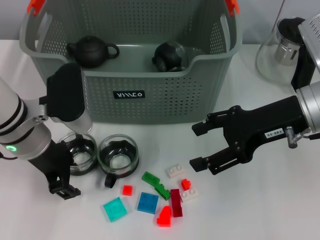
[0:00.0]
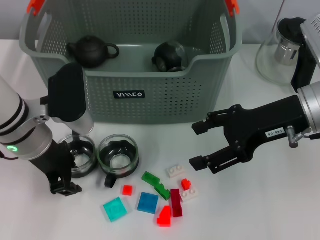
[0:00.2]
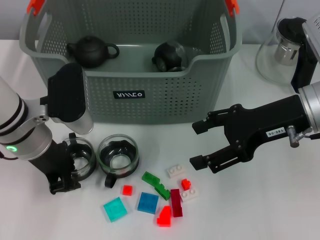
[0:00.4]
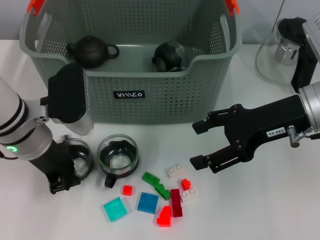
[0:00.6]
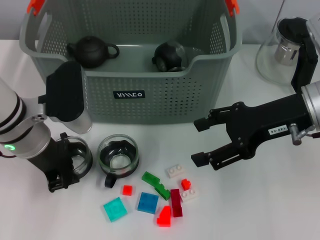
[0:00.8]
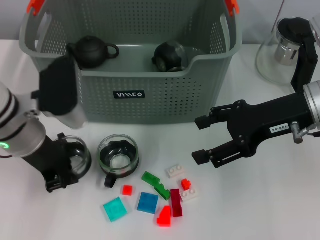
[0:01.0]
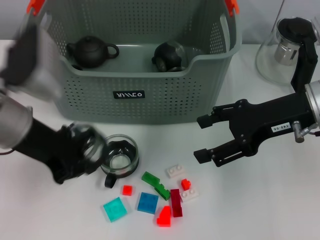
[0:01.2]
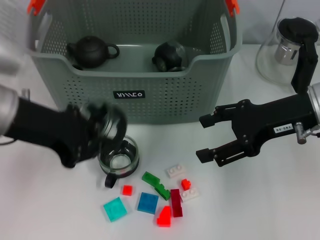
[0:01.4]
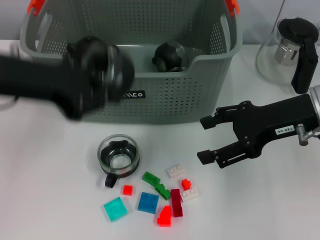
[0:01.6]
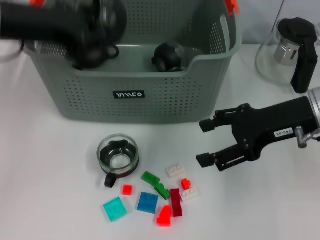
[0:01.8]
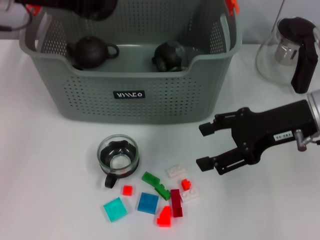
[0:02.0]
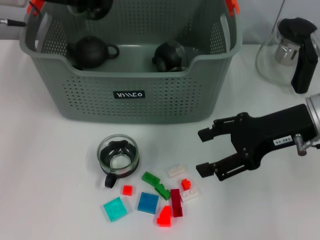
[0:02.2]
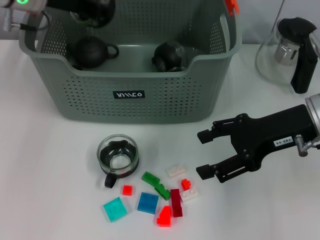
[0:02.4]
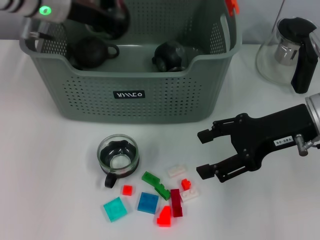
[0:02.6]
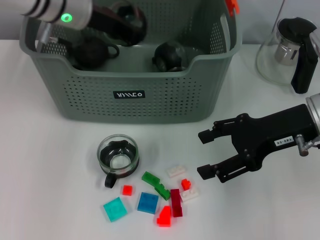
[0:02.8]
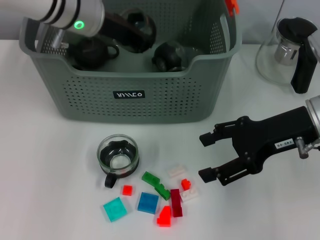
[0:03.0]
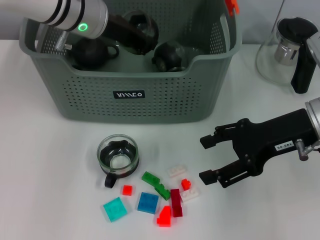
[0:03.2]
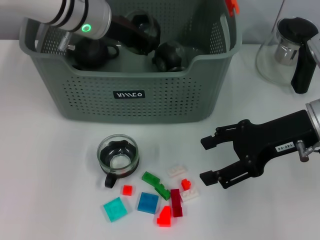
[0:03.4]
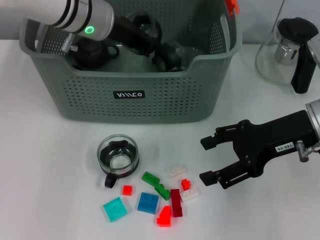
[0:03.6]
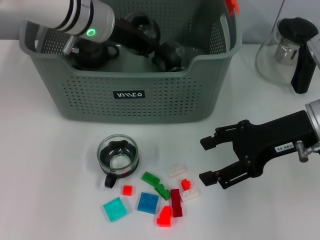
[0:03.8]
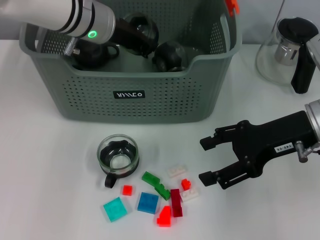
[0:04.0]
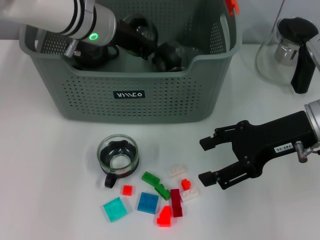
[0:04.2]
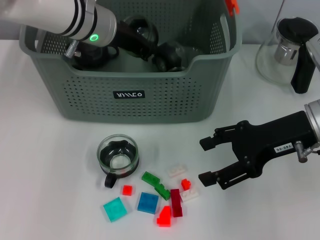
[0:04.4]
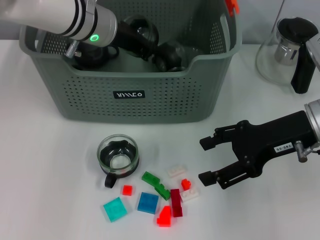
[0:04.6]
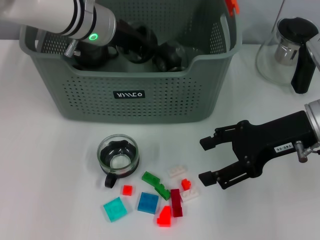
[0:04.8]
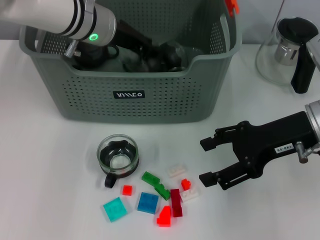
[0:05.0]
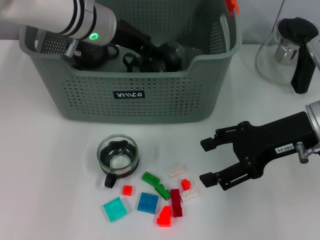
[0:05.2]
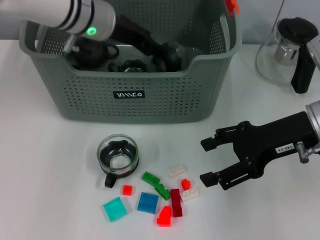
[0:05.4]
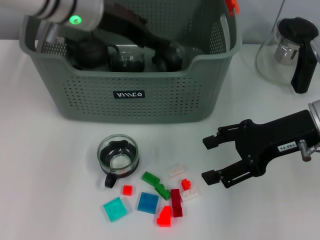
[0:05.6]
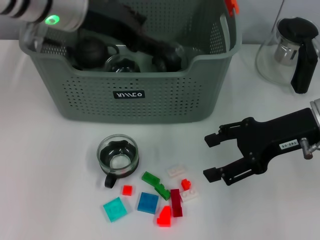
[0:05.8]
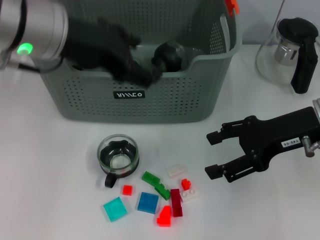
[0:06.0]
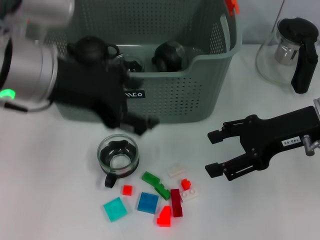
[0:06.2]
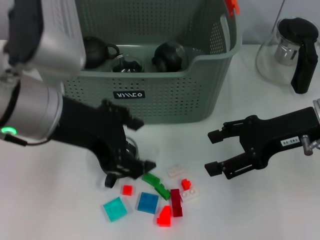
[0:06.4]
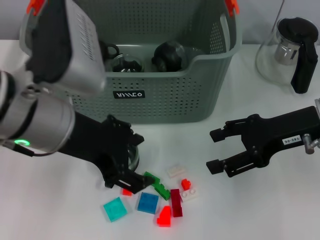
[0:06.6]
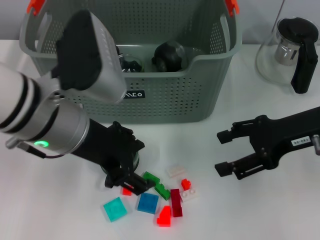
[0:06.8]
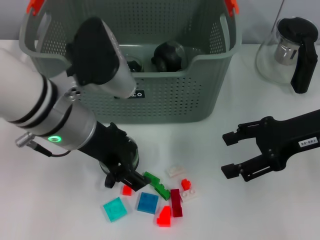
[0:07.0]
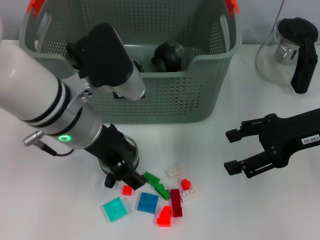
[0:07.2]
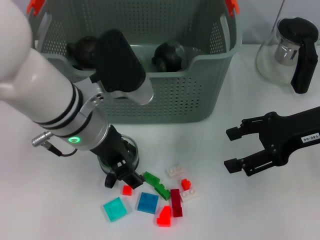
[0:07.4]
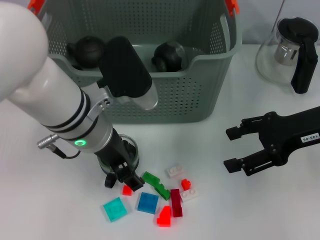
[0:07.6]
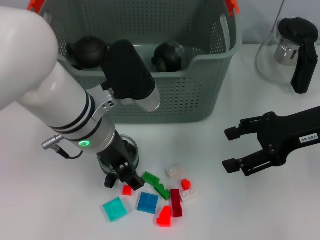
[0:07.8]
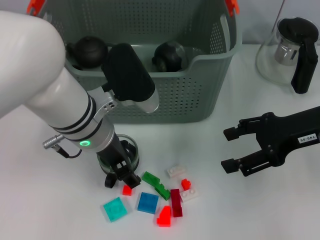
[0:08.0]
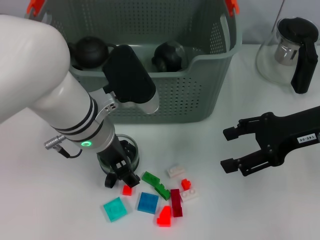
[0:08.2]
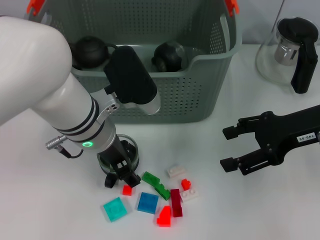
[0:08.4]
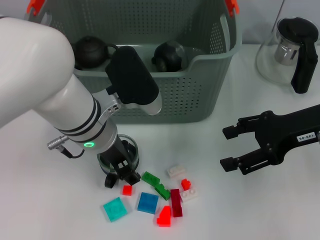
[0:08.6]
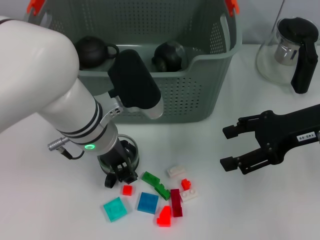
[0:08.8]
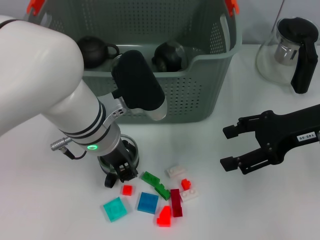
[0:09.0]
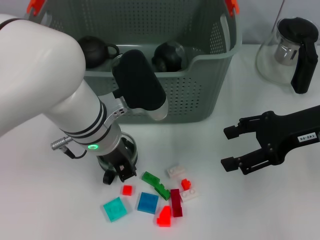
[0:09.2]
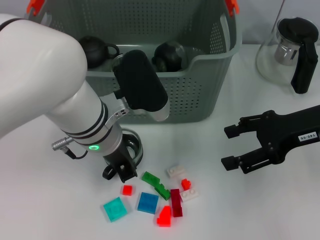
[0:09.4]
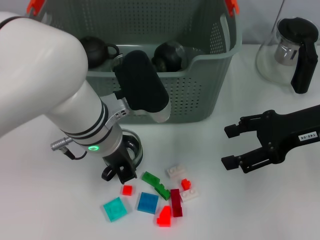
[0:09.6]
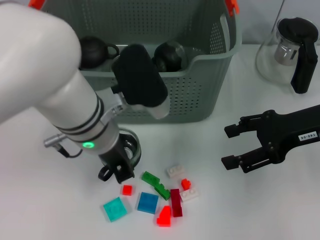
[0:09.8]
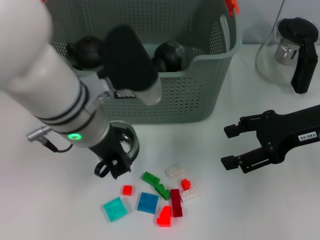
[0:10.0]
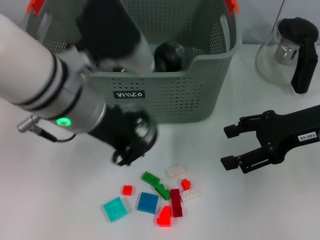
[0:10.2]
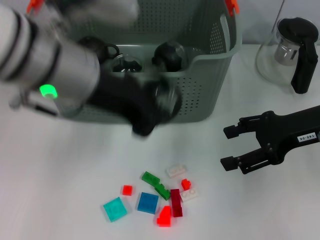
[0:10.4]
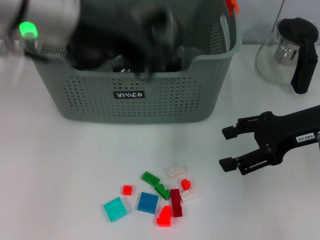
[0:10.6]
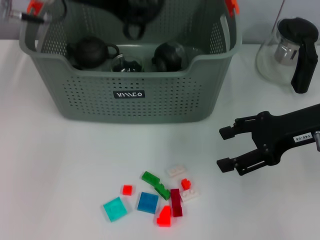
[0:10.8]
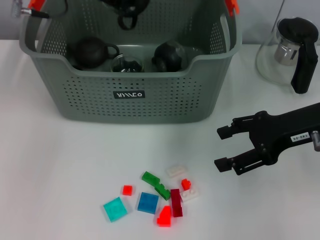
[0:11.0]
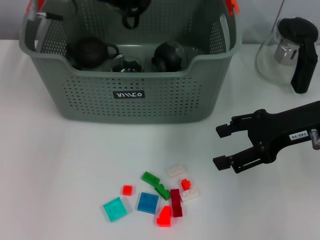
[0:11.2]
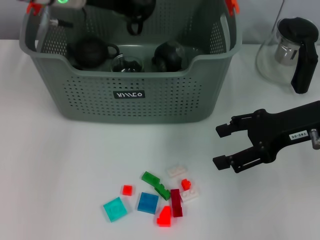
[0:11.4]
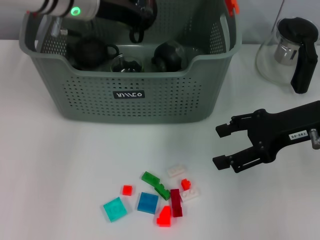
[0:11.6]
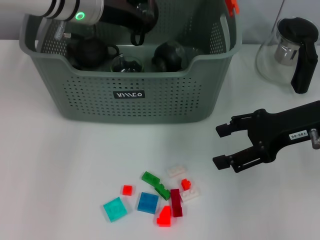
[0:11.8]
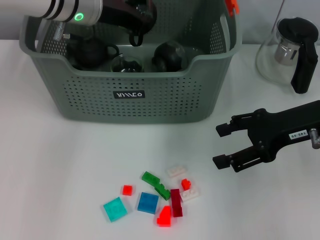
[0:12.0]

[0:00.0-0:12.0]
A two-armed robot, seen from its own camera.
Task of the whole recording: pick up the teacup on the table and place it into the storage bin, pick up the block on the table and place it into the storage bin.
Step, 0:01.0 to 0:05.2: Place the cup in the storage box with left gripper.
Step, 0:05.4 to 0:09.2: Grasp the cup with left gripper.
0:00.0 to 0:01.6: The left gripper travels upward by approximately 10 cm, and closes its fingers.
0:01.6 to 0:03.0: The left gripper travels forward and to the right by approximately 15 cm.
0:03.0 to 0:04.4: The grippers move only a little.
0:04.4 to 0:06.0: The left gripper moves backward and upward, roughly 15 cm, and opens.
0:06.0 to 0:07.6: The left gripper moves downward and to the right, some 10 cm.
0:07.6 to 0:09.0: The grippers stay close to where they were, moving slightly.
0:09.0 to 0:10.4: The left gripper heads upward, covering about 15 cm, and closes.
0:10.4 to 0:12.0: The left gripper moves forward, some 15 cm.

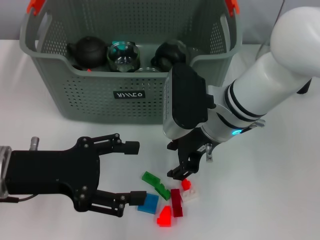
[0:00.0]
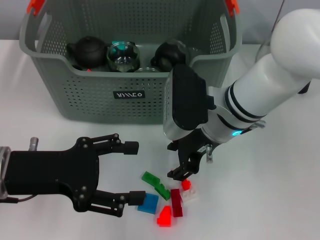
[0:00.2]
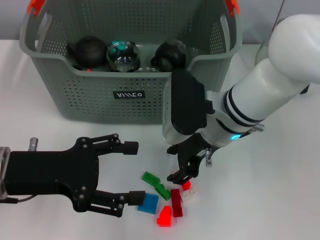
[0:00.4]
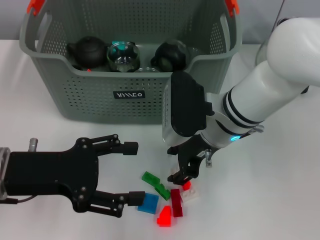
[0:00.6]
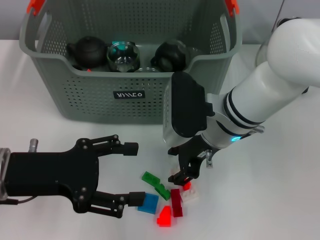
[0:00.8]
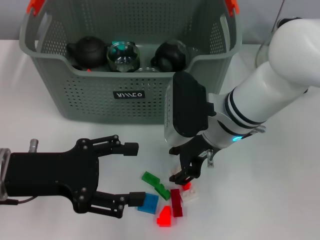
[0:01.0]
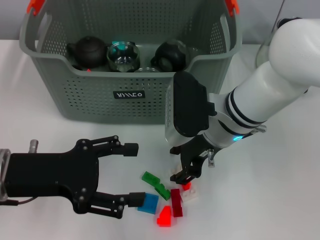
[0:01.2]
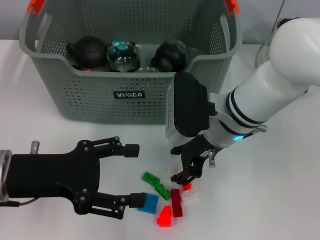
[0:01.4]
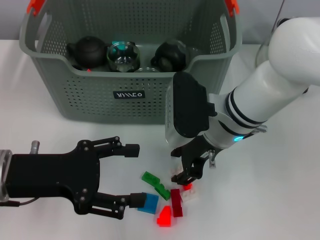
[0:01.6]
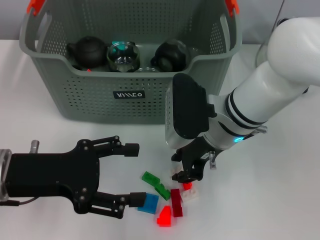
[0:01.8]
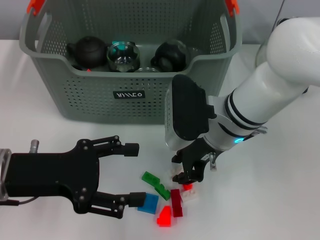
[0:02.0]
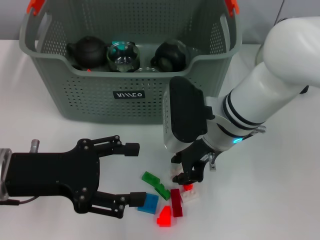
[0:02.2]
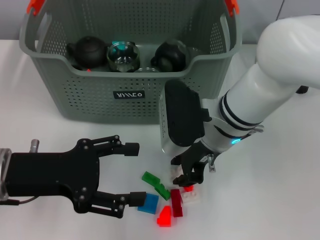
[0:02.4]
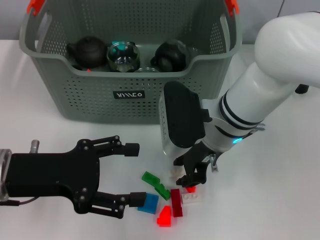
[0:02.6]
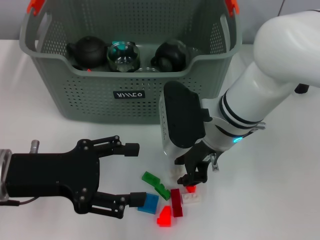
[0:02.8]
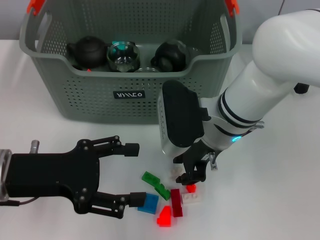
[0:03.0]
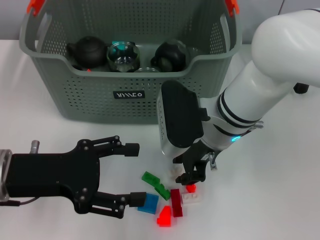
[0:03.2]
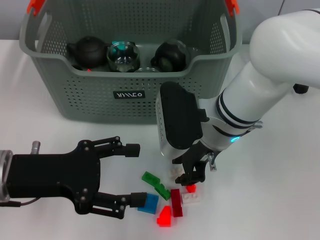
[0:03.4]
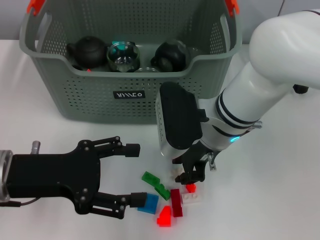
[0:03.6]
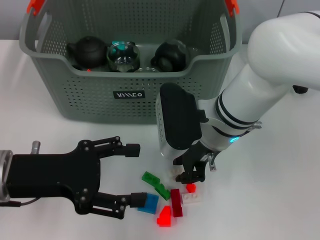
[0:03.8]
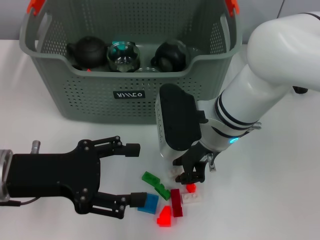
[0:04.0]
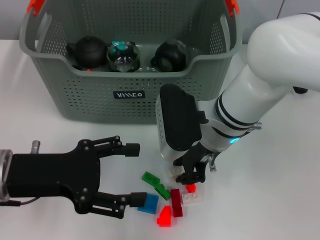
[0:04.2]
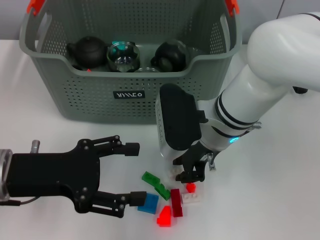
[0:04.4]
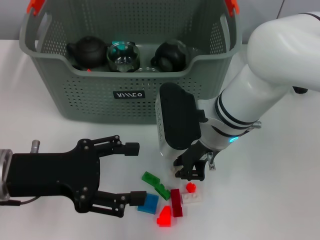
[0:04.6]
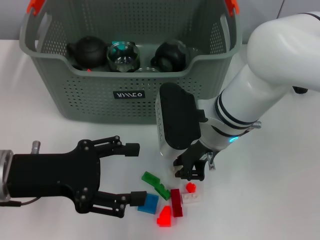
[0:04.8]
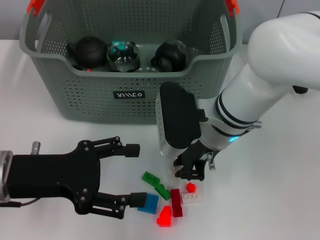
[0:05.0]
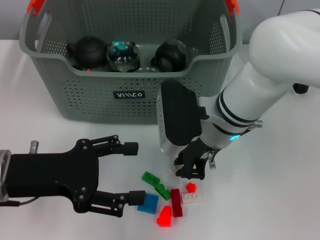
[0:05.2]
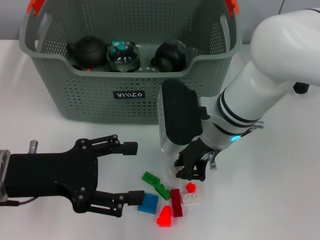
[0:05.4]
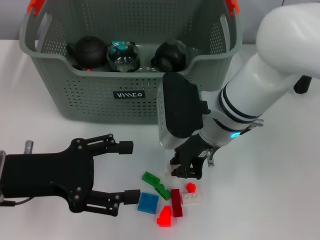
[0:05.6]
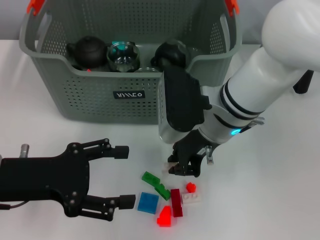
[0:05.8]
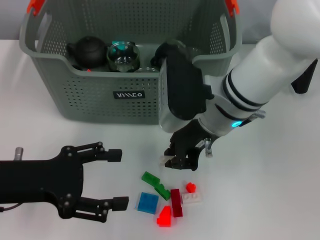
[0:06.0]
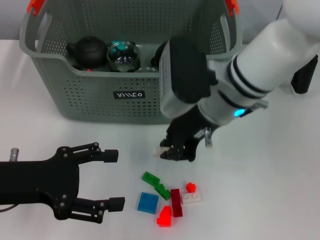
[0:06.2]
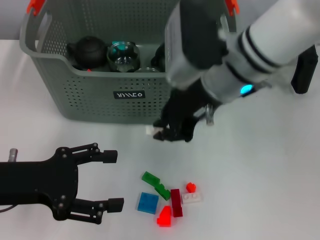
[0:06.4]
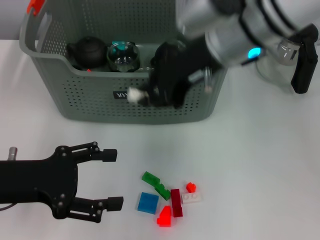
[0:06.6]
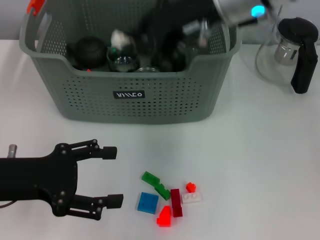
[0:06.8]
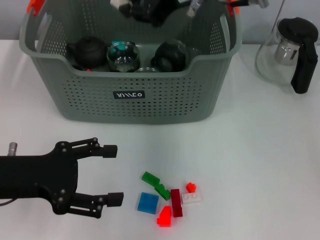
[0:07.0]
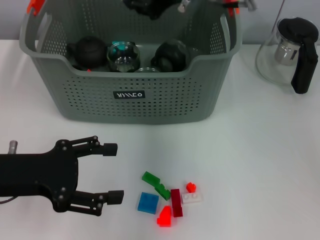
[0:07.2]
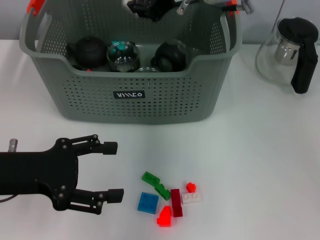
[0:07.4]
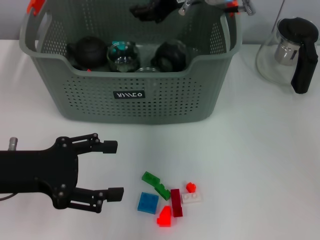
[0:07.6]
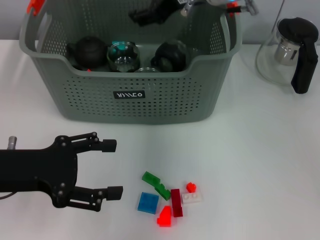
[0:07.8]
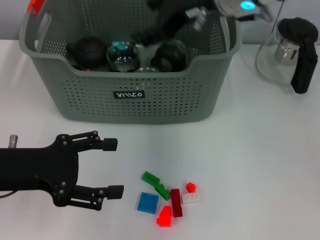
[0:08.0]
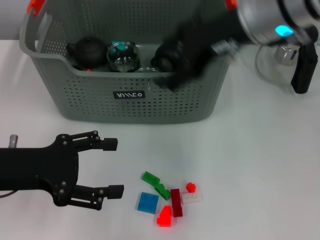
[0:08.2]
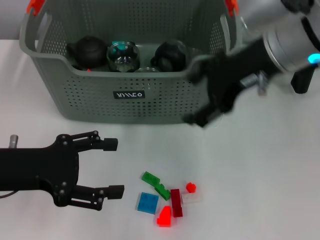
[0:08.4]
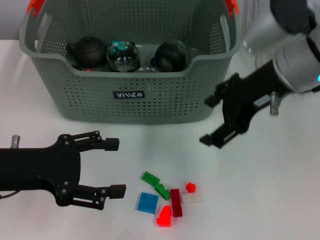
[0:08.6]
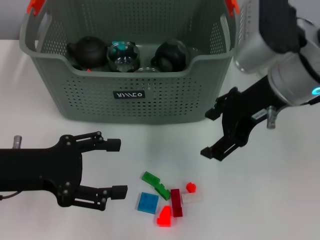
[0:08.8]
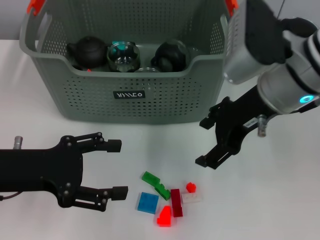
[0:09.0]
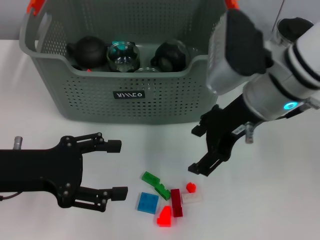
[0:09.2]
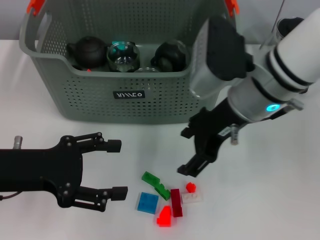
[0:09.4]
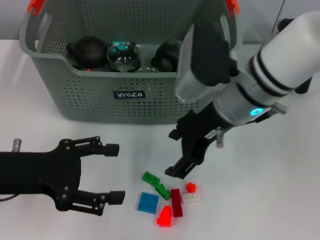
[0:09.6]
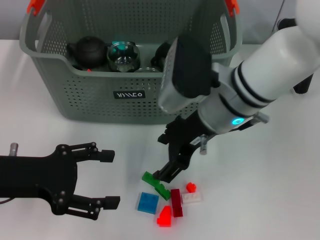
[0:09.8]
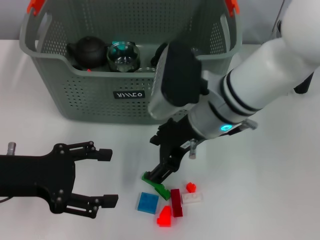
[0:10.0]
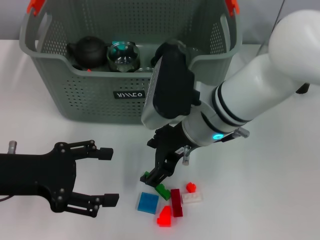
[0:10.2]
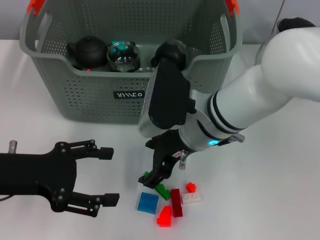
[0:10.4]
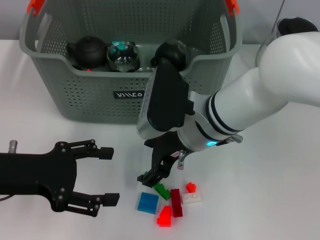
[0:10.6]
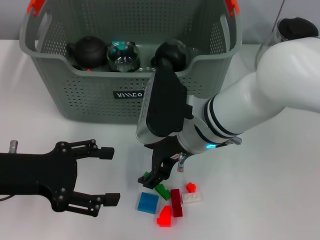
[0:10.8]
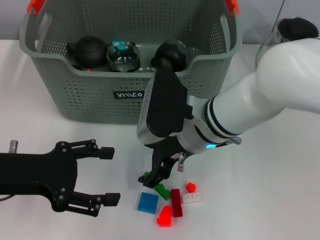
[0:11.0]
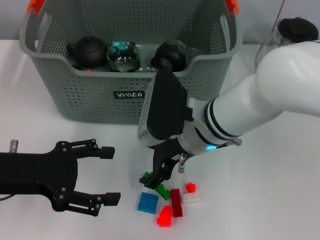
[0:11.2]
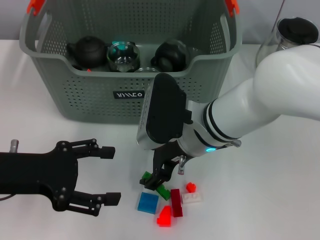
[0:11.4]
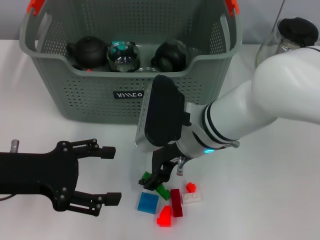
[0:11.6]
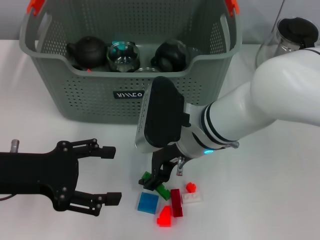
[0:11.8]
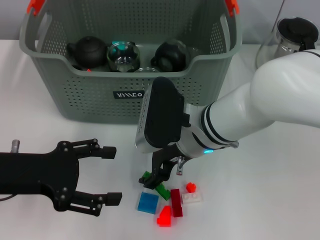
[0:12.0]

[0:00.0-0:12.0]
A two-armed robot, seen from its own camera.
Task of the whole recording: pick up the teacup on the table and place it into the storage bin, pick up the block on the table and place it into the storage bin.
Step, 0:00.0 to 0:04.4: Grasp the white block with left gripper.
0:00.0 to 0:01.6: Neither gripper changes place.
0:01.6 to 0:03.0: There are only small adjustments of the grippers.
0:03.0 to 0:04.4: Neither gripper changes place.
0:04.4 to 0:06.0: There are only small adjustments of the grippers.
0:06.0 to 0:07.6: The right gripper is displaced upward and forward by some 15 cm.
0:07.6 to 0:09.0: The right gripper travels backward and to the right by some 10 cm, and opens up.
0:09.0 to 0:10.4: The right gripper is displaced to the left and downward by some 10 cm.
0:10.4 to 0:12.0: The grippers make only small movements.
